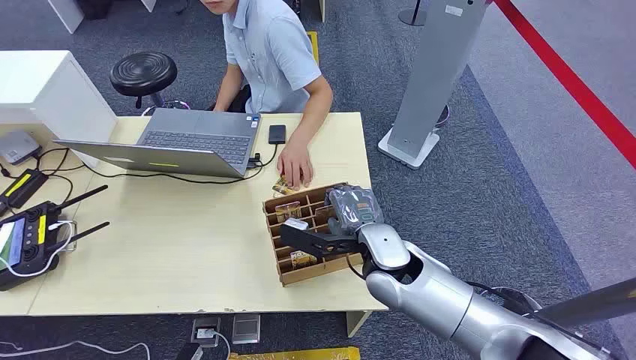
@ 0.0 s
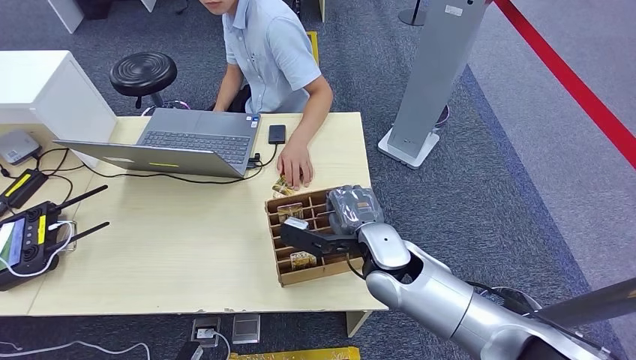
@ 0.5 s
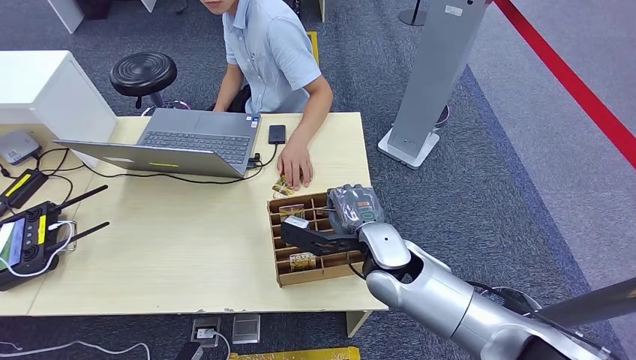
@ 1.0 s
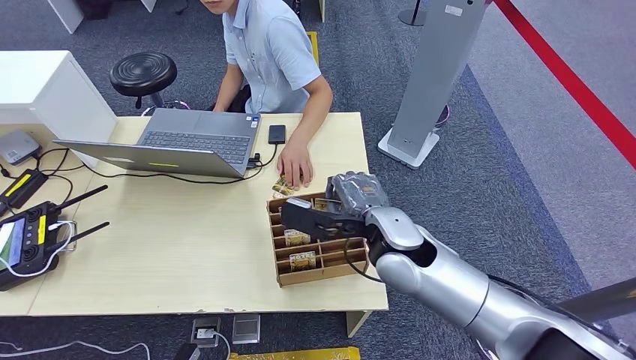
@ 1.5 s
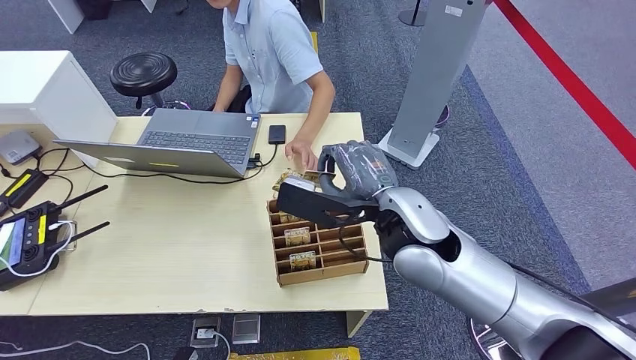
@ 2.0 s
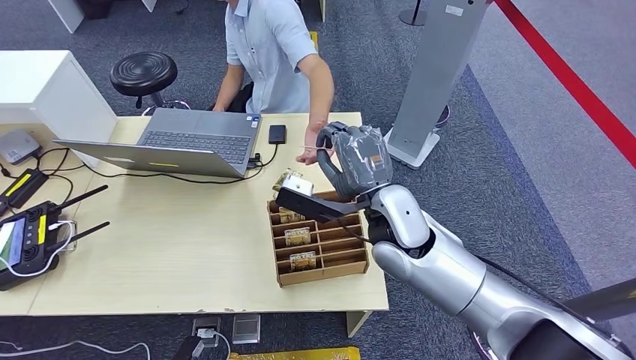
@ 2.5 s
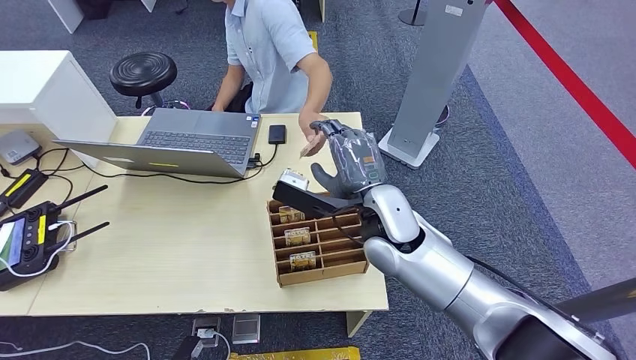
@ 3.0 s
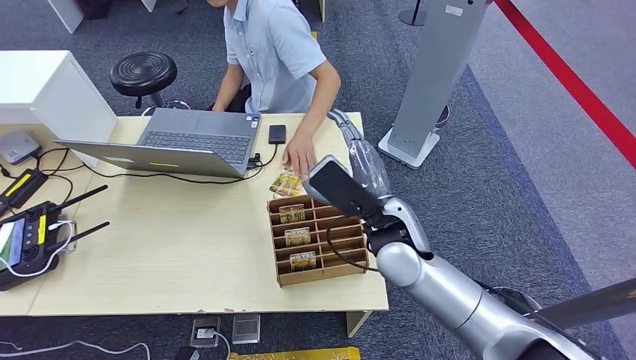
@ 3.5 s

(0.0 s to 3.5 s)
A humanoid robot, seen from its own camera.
Step, 0.0 s - 1.5 s: Pick up the room card from the card holder.
Step, 2.0 s - 3.5 s: Hand the room card to the target.
2.0 s - 3.5 s: The right hand heads downward, covering some 5 cm.
